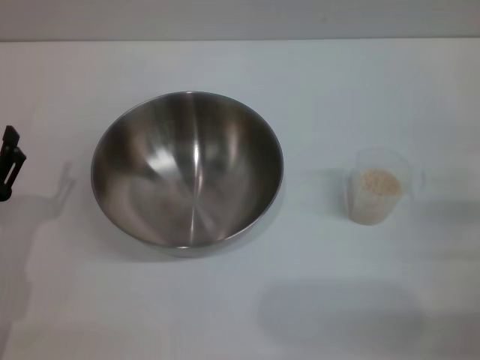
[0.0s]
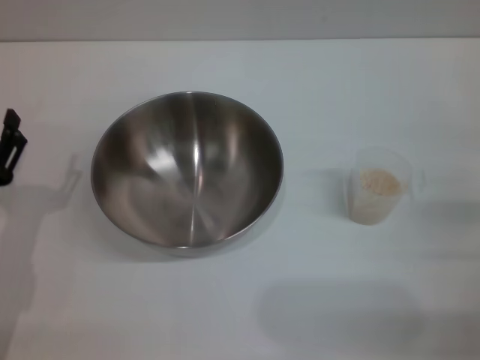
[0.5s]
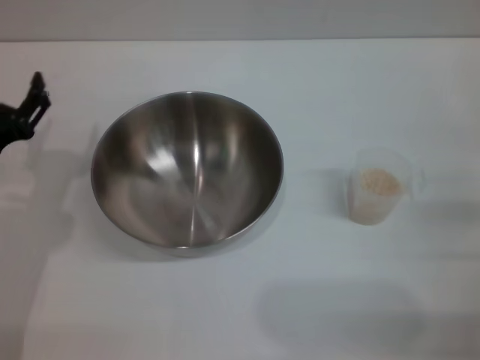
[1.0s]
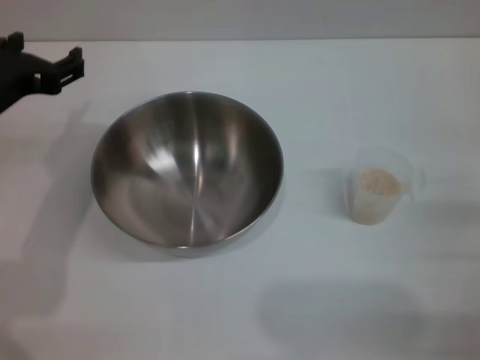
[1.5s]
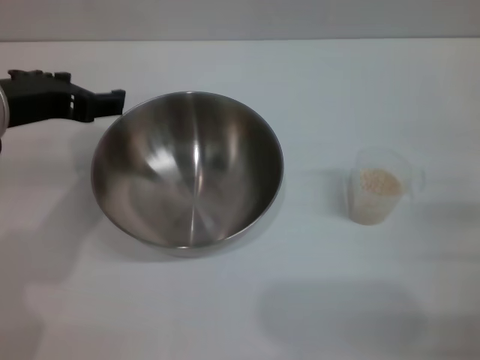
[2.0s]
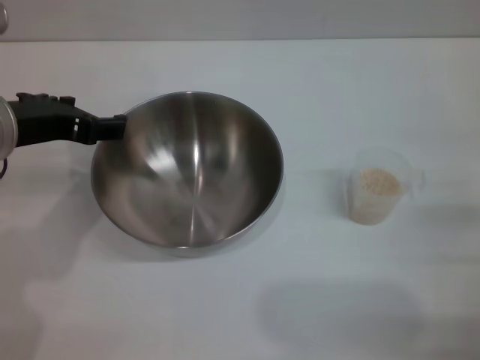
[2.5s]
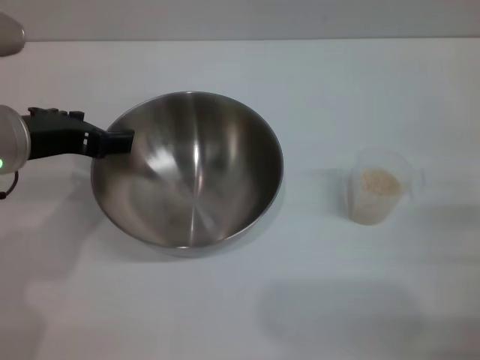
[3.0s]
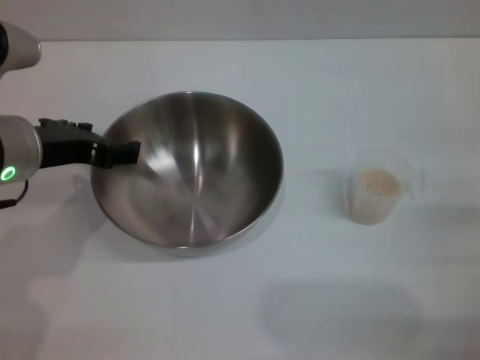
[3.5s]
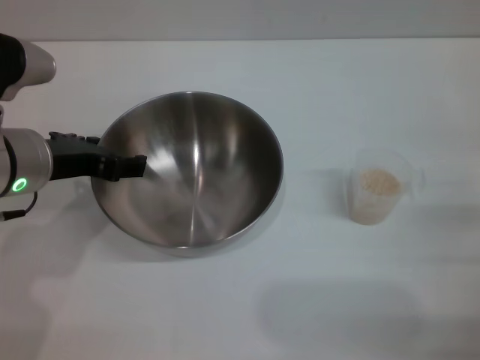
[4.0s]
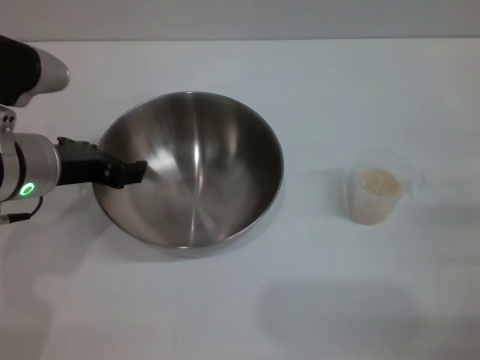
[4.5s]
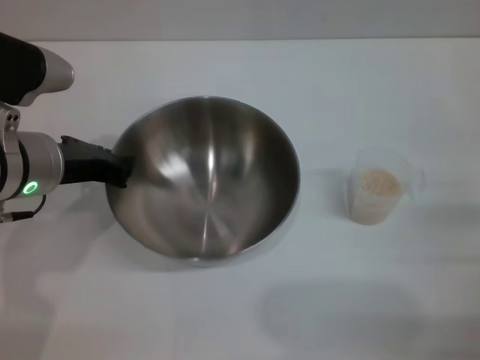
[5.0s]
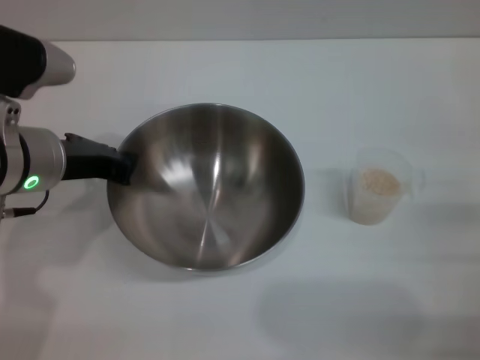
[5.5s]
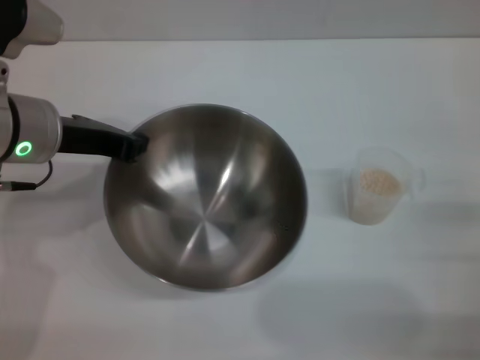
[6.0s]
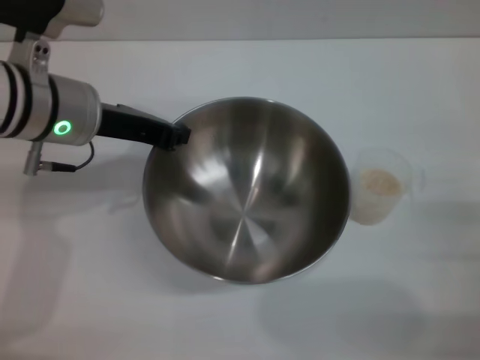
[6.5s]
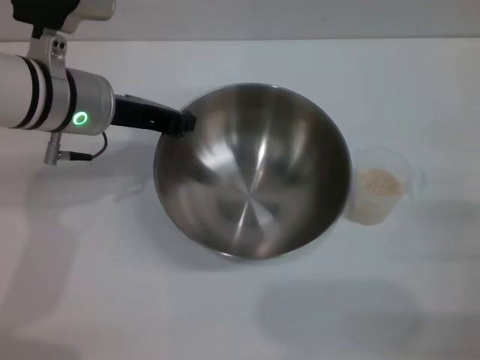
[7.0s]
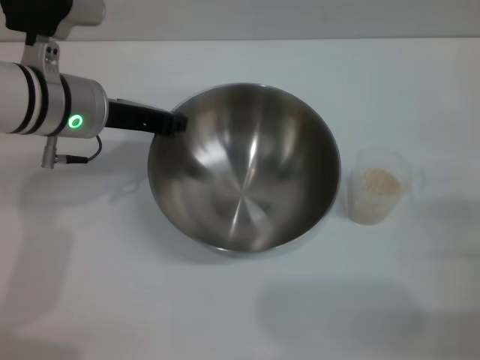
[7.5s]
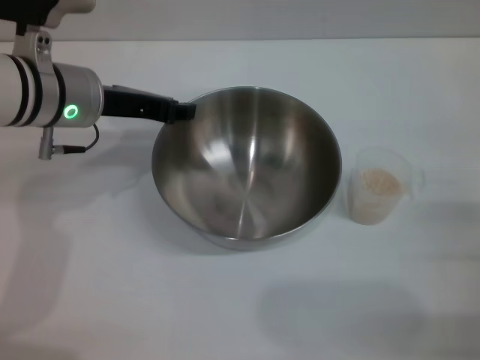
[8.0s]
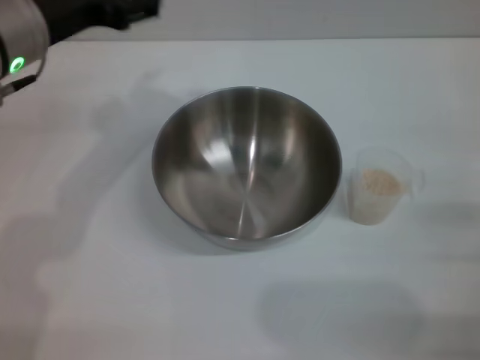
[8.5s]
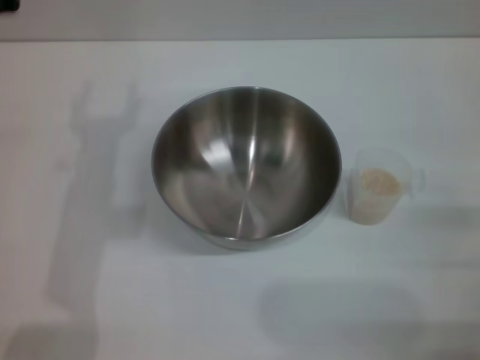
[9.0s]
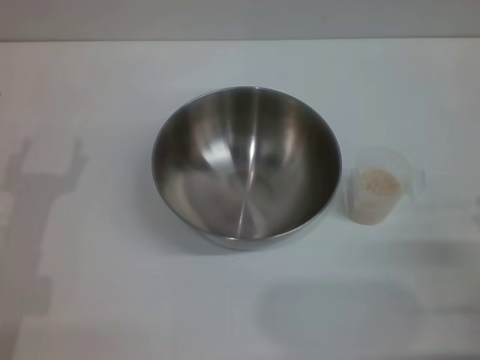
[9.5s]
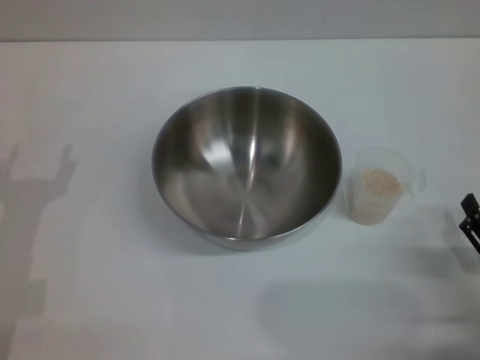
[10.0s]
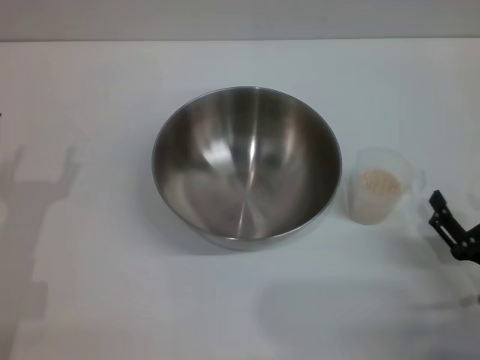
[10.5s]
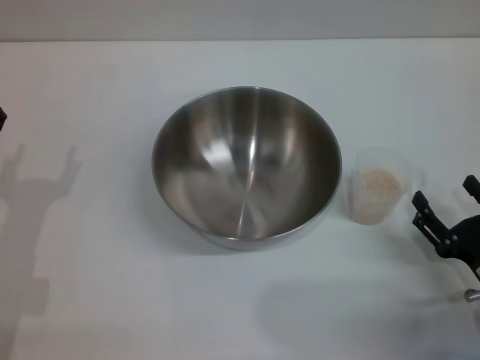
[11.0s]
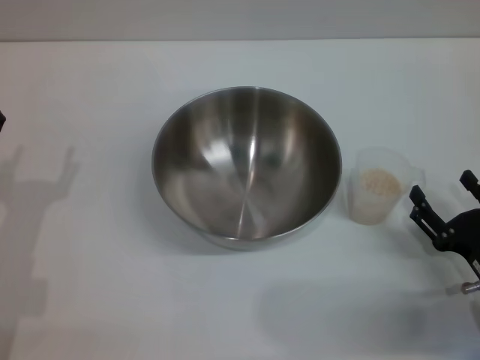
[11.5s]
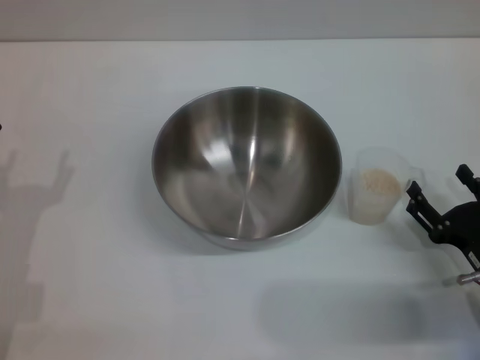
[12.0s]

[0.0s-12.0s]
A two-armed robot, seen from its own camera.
Task of the whole recording: Place the bowl in the middle of the table with one hand and pour the rice from the grain cup into it with the other hand.
Step, 0.0s to 6.0s: Pick up the bowl with the left gripper.
Step, 6.5s to 8.0s: Place the bowl in the center of view with the left gripper.
0.0s to 2.0s: The left gripper travels upward and forward by about 20 cm.
2.0s to 4.0s: The left gripper travels downward by about 5 cm.
4.0s to 6.0s: The left gripper closes its fingers.
6.0s to 8.0s: The left gripper changes place by approximately 5 cm.
8.0s to 10.0s: The left gripper travels backward, downward and to the left by about 20 cm, and opens; the right gripper moves approximately 5 cm.
10.0s to 12.0s: The right gripper ends up some 5 cm from where it was.

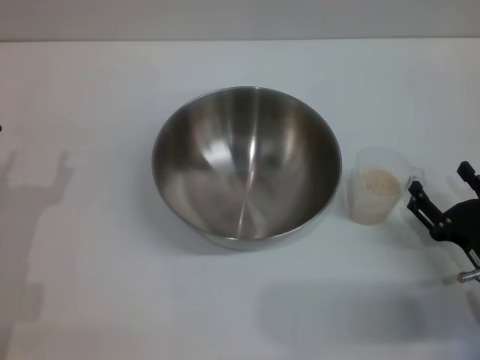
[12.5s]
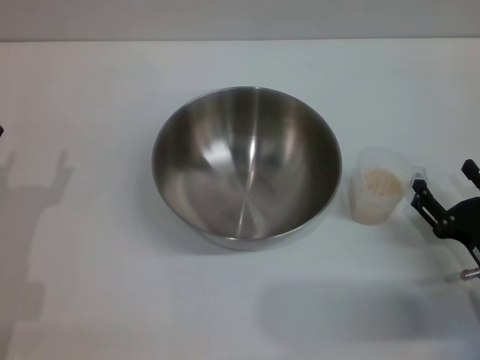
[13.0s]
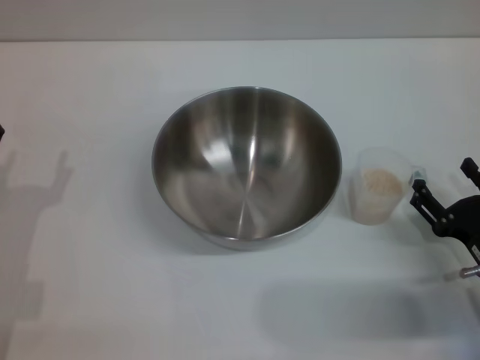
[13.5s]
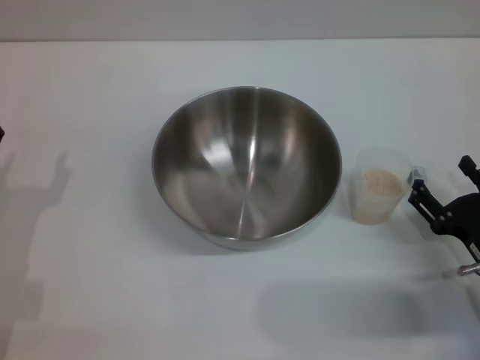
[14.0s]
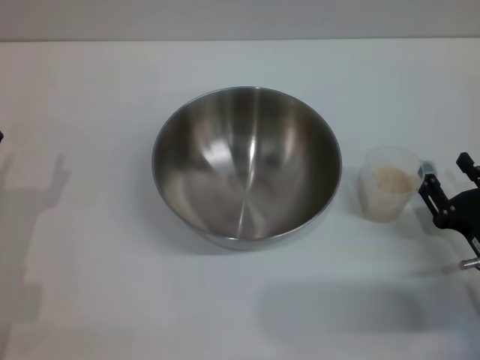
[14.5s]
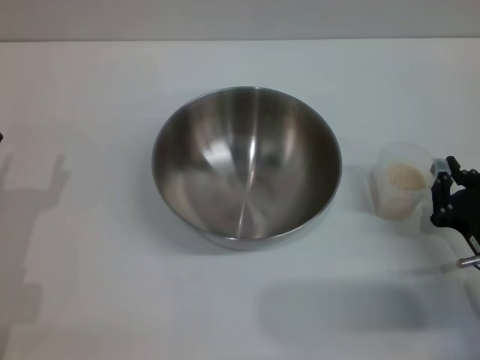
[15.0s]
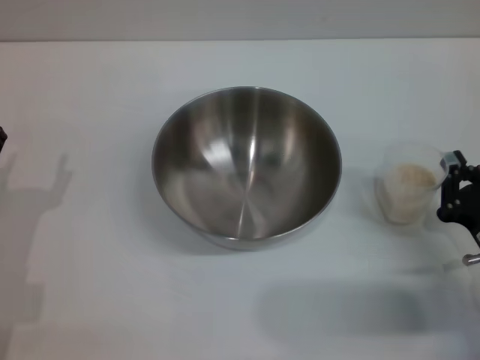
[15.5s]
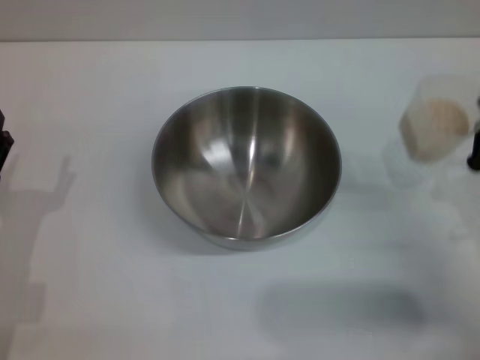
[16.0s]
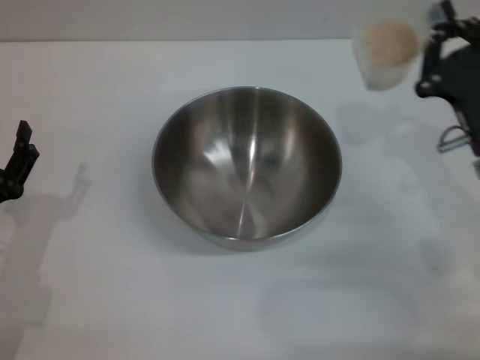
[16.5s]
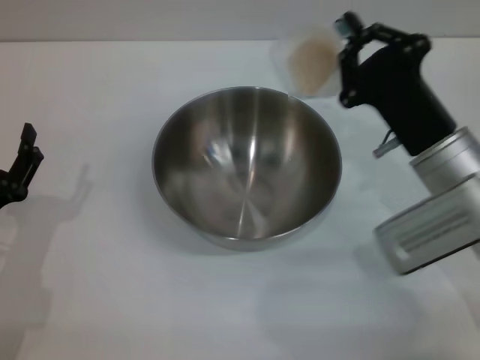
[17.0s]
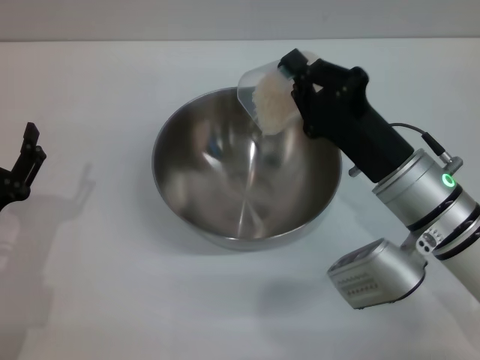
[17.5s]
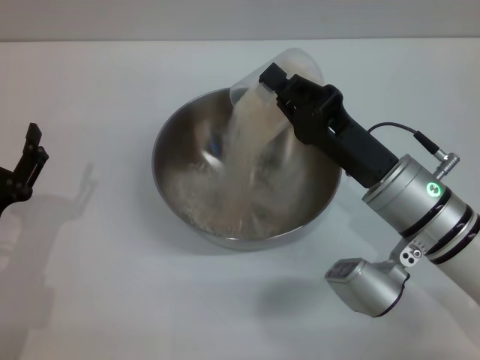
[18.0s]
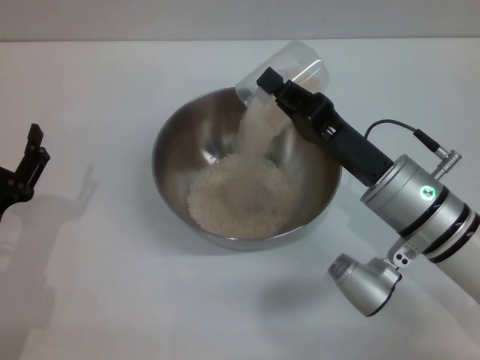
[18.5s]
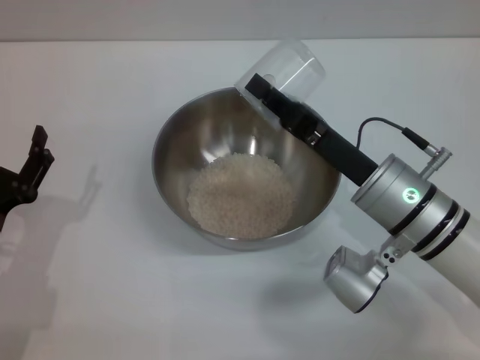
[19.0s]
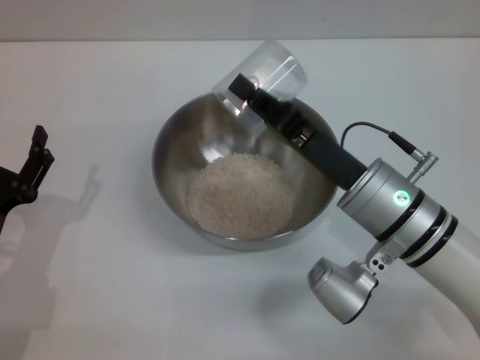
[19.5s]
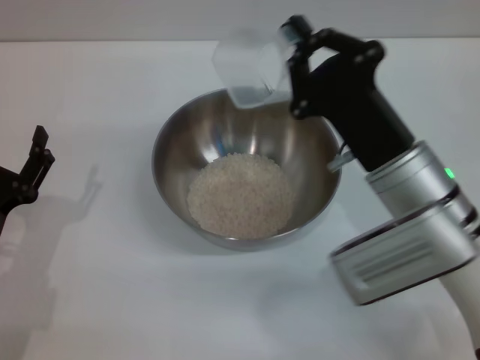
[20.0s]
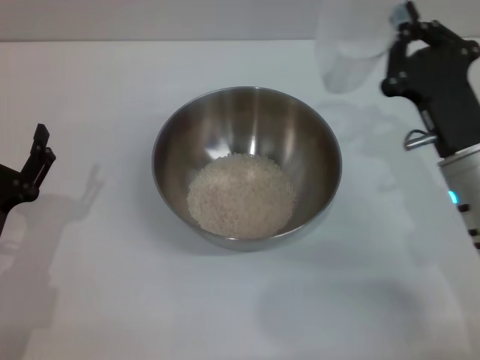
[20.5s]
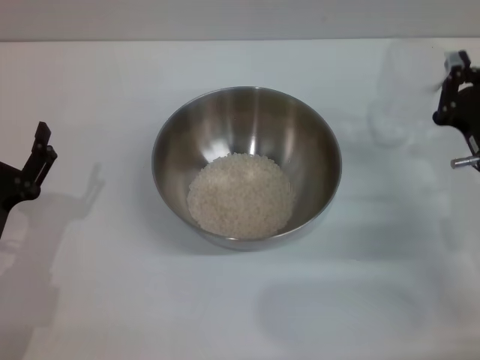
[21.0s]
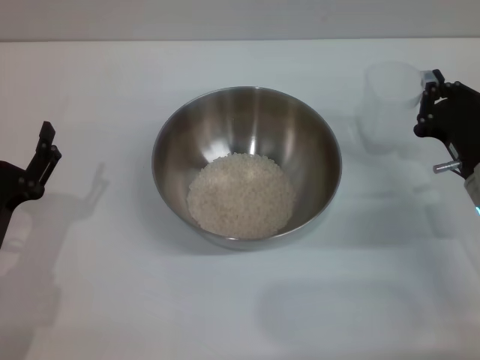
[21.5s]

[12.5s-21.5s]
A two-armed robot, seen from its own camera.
Task of the whole recording: Place the bowl in the middle of the table with one hand and pour the rice from the grain cup into it with the other hand.
Step, 12.5s to 15.5s: Pick up the cup with rice in it with the right gripper.
Step, 16.0s to 19.0s: Pour the rice from the cup into the bowl with the right gripper.
12.5s to 14.5s: The two grippers keep their place.
14.5s to 17.0s: The right gripper is displaced forward, upward and to the left by approximately 15 cm, and closes up.
17.0s to 19.5s: The right gripper heads to the left, covering about 5 cm.
19.5s to 21.5s: The right gripper is displaced to the right by roughly 10 cm.

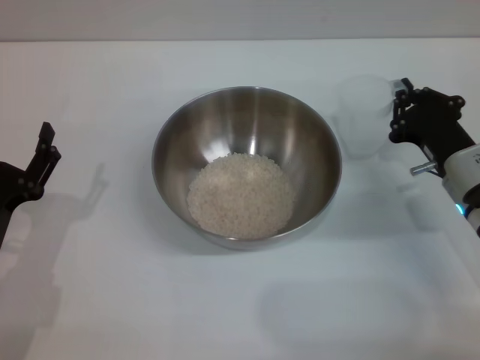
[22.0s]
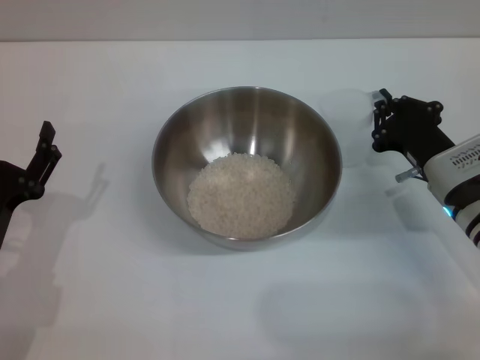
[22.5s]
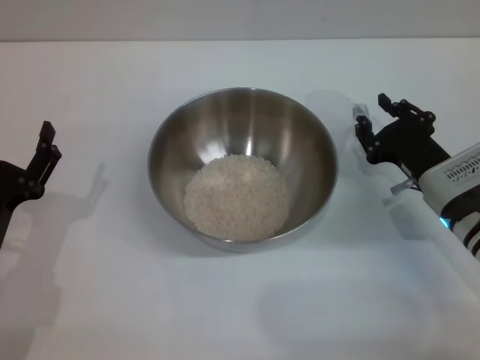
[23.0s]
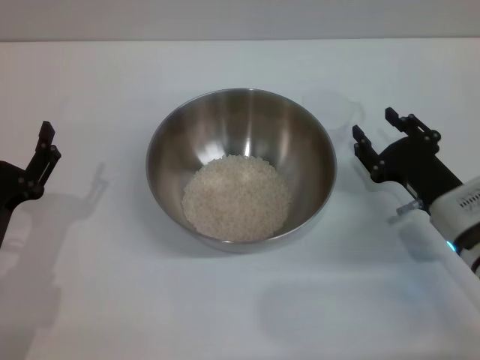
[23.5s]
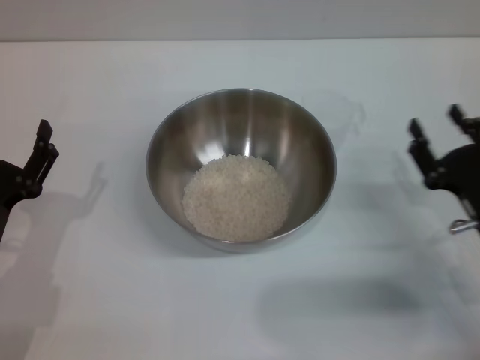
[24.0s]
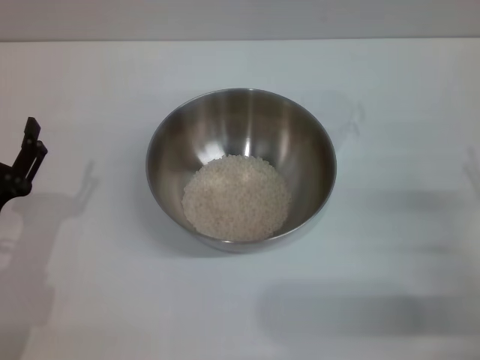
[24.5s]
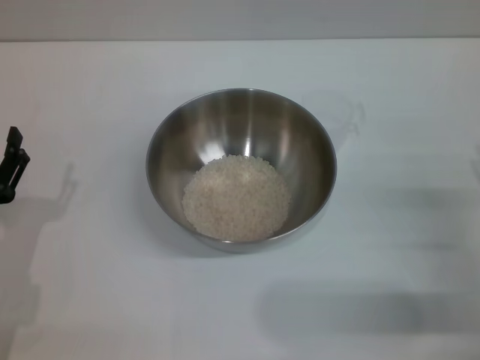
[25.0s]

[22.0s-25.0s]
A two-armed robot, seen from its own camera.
Task of the whole recording: Place the bowl in the middle of the table with one hand and pour the rice from the grain cup into it with the other hand.
22.0s to 23.5s: The right gripper opens up.
23.5s to 25.0s: The right gripper travels backward and to the right by roughly 10 cm.
